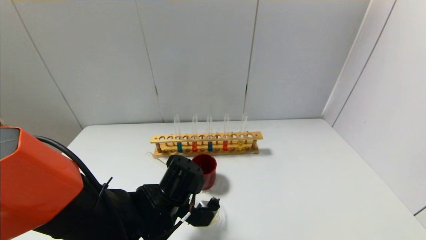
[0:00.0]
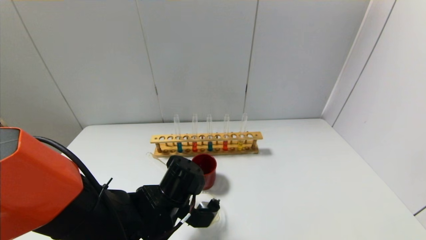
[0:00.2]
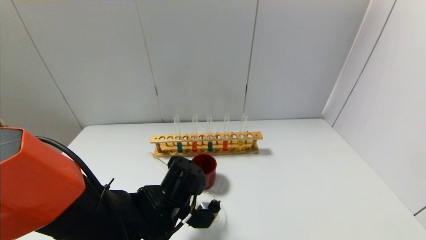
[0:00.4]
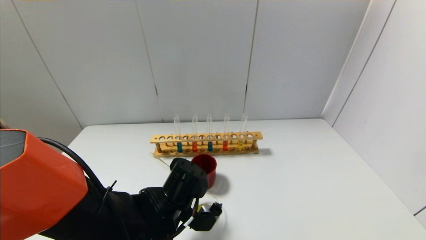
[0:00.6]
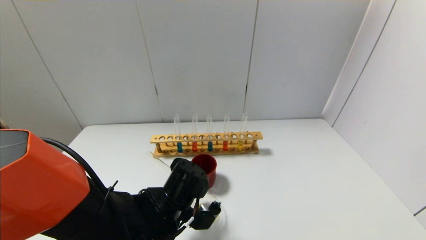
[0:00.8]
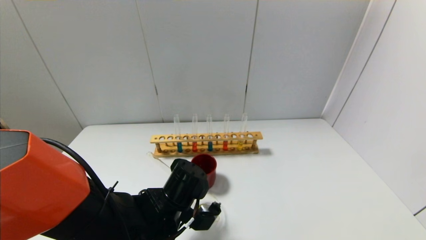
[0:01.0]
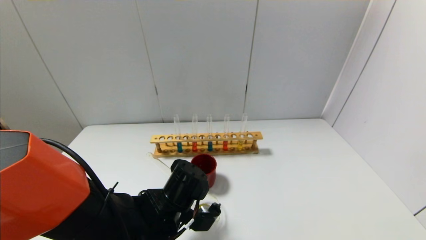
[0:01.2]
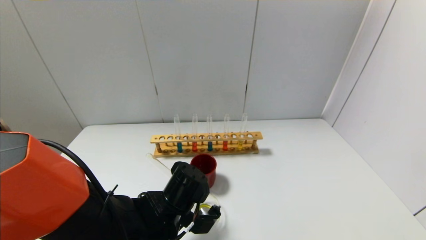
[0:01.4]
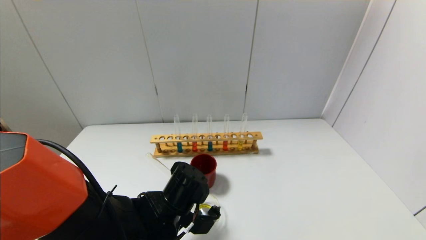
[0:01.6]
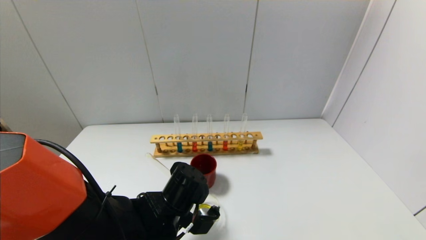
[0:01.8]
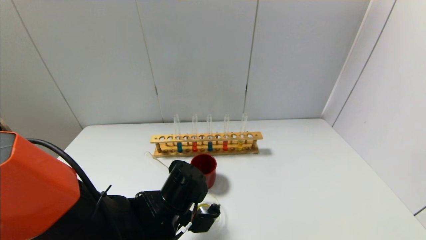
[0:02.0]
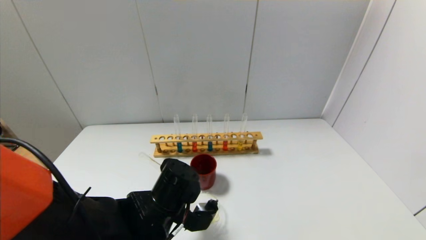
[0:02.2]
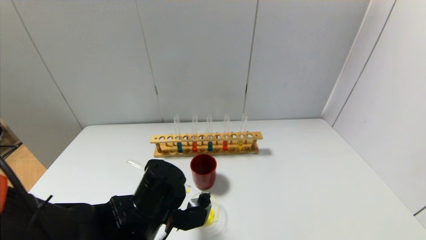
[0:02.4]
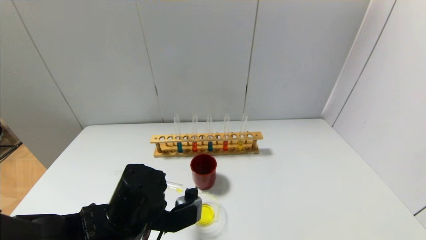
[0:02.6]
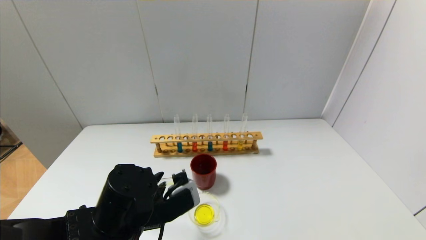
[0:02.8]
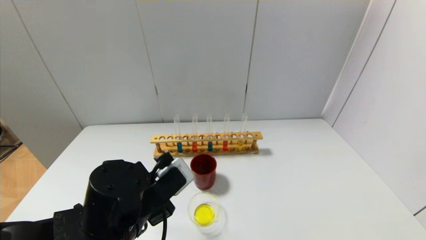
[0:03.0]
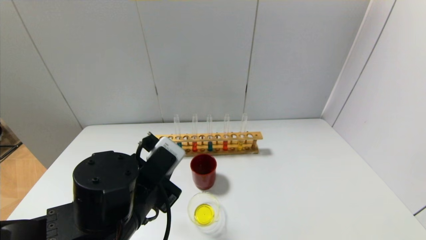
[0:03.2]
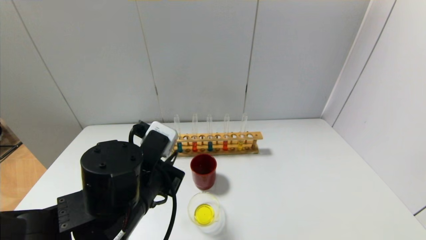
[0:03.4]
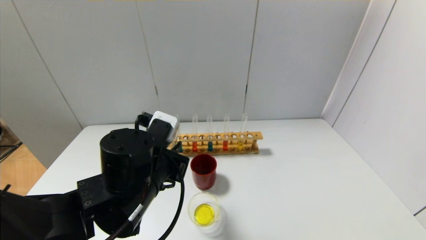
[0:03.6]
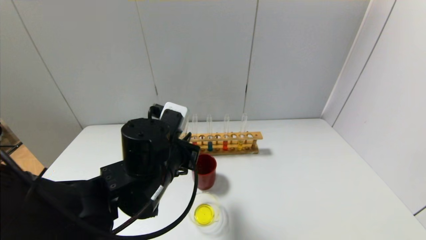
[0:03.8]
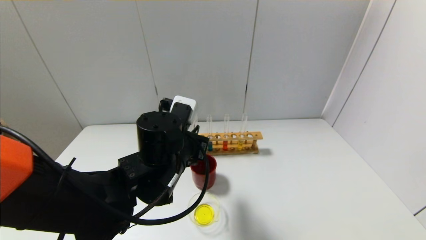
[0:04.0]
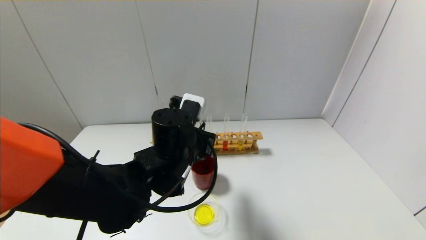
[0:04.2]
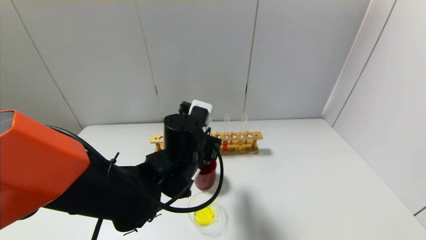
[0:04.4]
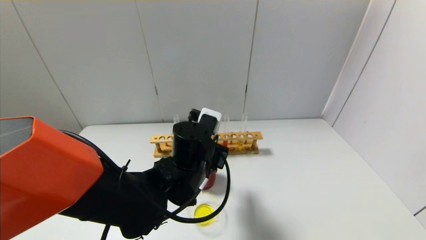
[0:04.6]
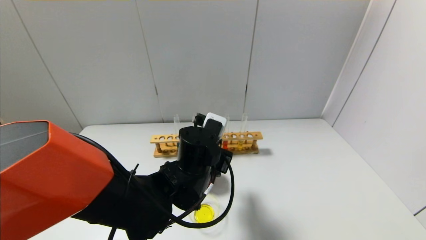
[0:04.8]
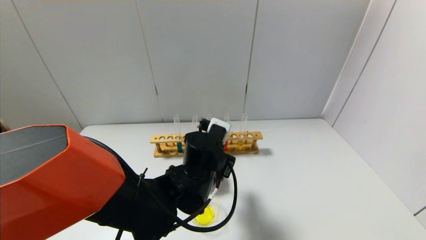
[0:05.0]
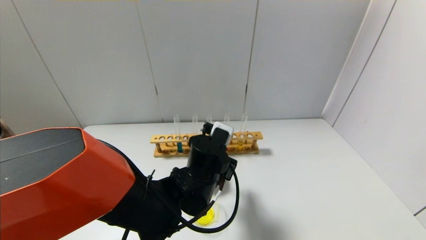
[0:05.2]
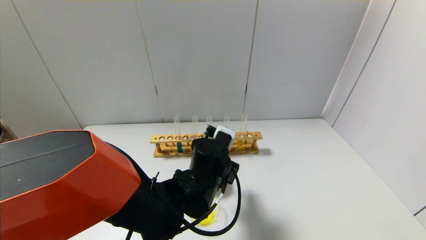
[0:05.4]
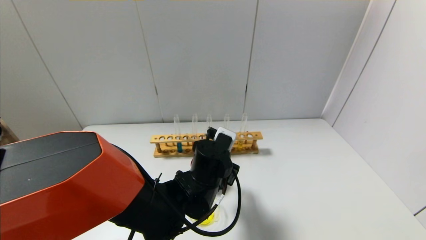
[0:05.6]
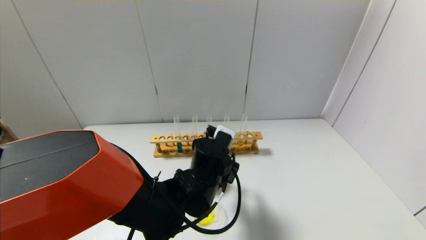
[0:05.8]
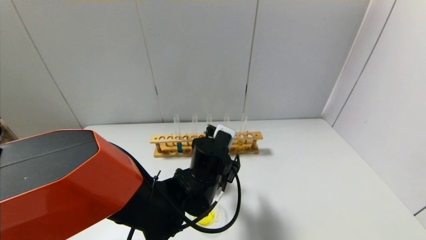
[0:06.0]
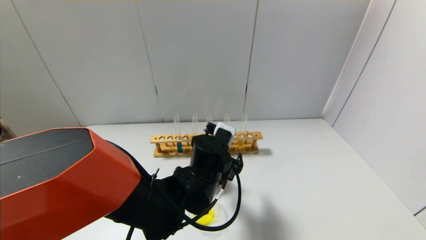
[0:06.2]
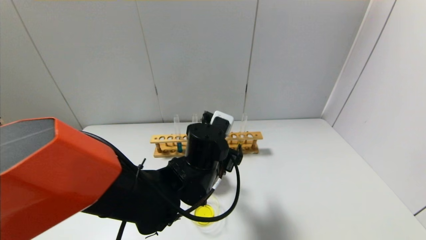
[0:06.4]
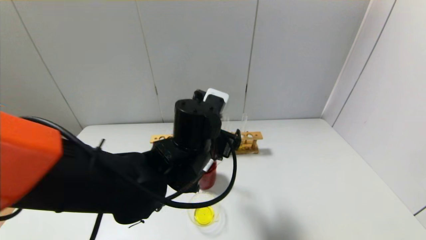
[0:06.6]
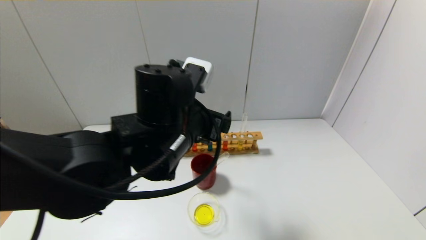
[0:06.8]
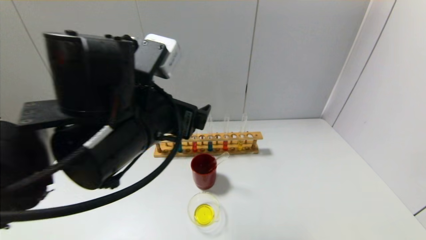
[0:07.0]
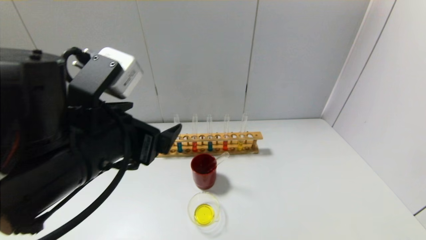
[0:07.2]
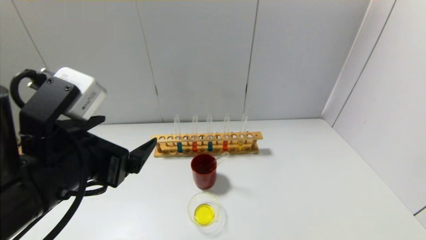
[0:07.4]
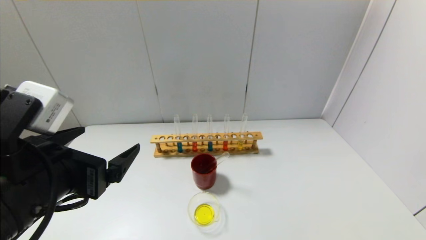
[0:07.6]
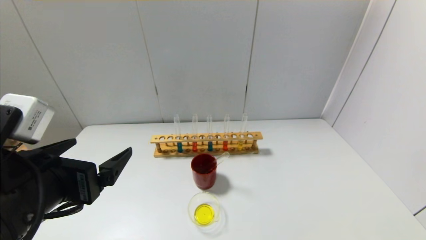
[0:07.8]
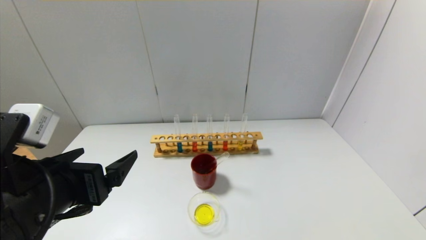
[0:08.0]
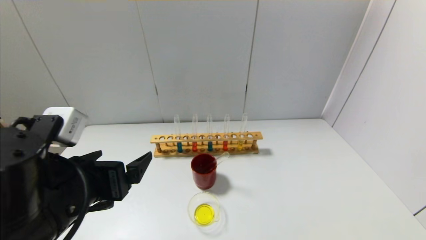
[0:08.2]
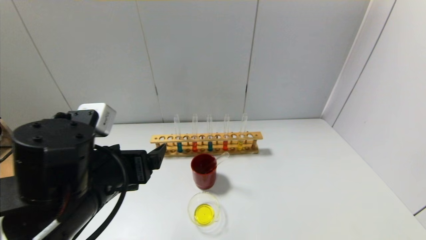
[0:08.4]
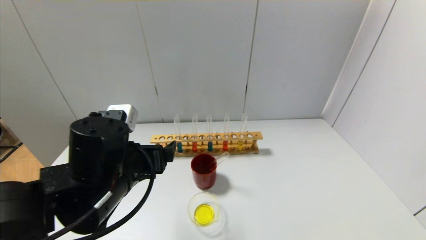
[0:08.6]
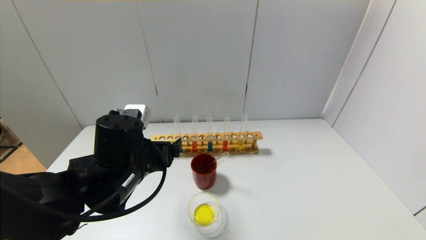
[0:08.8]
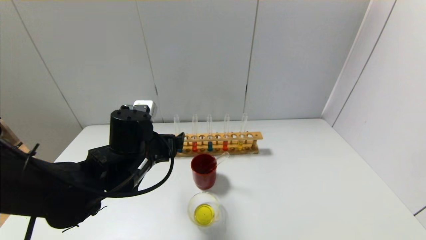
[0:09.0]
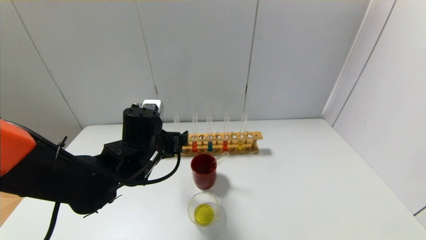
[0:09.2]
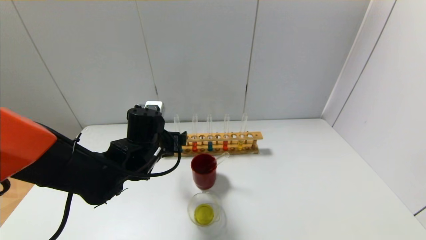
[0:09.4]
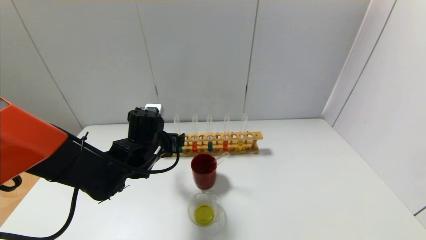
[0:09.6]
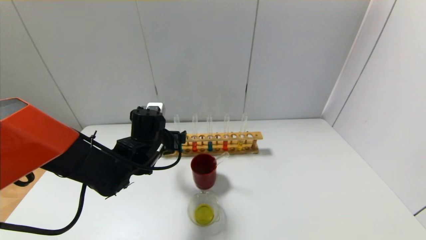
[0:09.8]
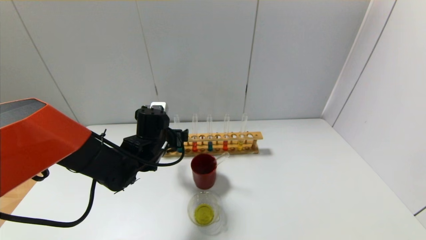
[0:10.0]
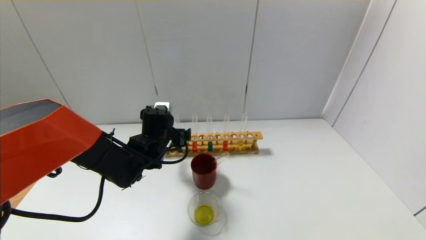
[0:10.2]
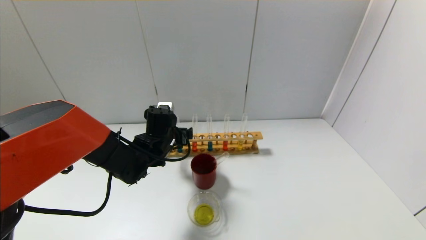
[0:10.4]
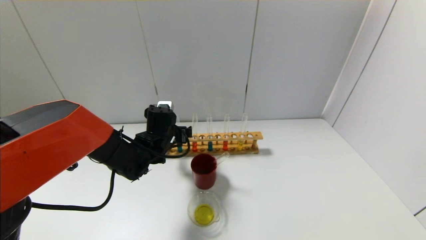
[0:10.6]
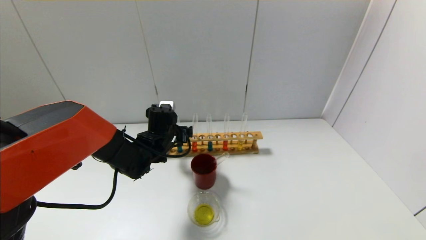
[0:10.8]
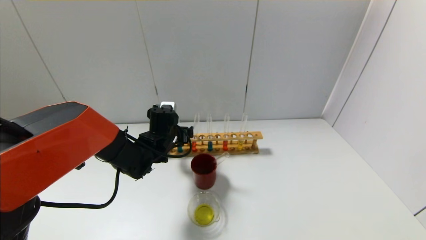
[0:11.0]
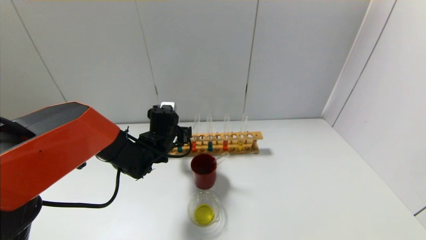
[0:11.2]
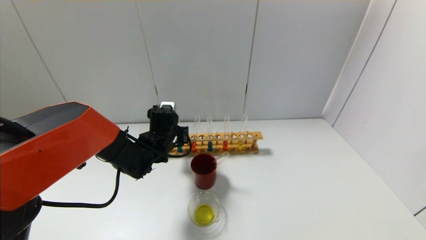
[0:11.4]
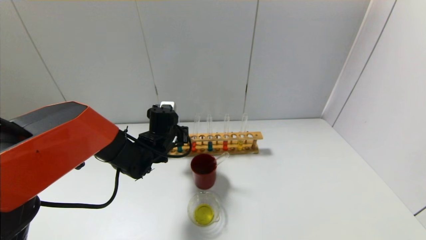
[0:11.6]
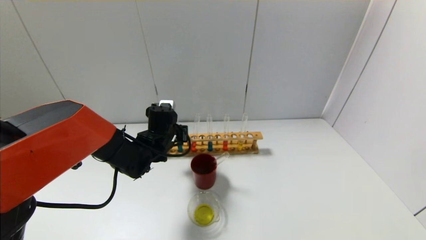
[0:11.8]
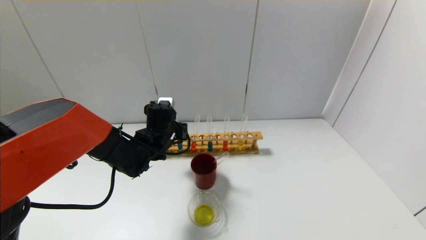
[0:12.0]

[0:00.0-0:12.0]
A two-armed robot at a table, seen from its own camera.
Step, 0:00.0 to 0:02.6: Pour the yellow reagent into the graduated cylinder with the left gripper.
Step, 0:02.8 to 0:05.8: Place the test tube into the brown cup with the left gripper.
Step, 0:06.0 to 0:11.8: Grasp the blue reagent with the left gripper.
0:00.0 to 0:01.6: Neither gripper changes place.
0:01.6 to 0:03.0: The left gripper heads upward and backward, covering some 10 cm.
0:03.0 to 0:04.4: The left gripper is displaced forward and to the right by some 15 cm.
0:04.4 to 0:06.0: The left gripper ends up approximately 5 cm from where it was, and opens its fingers.
0:06.0 to 0:07.6: The left gripper heads to the left, backward and upward, covering about 25 cm.
0:07.6 to 0:09.0: The left gripper is displaced forward and downward by approximately 15 cm.
0:09.0 to 0:10.4: The left gripper is displaced forward by roughly 10 cm.
0:10.4 to 0:12.0: The left gripper closes up.

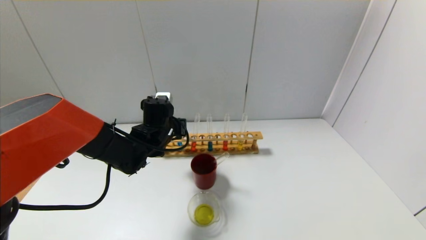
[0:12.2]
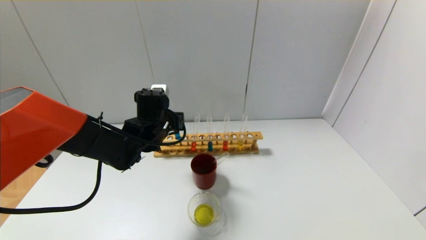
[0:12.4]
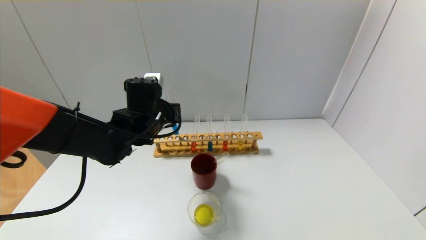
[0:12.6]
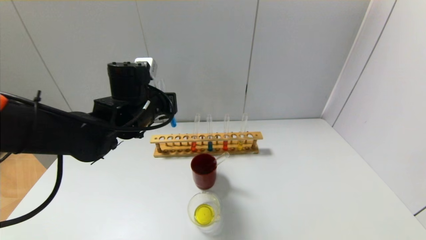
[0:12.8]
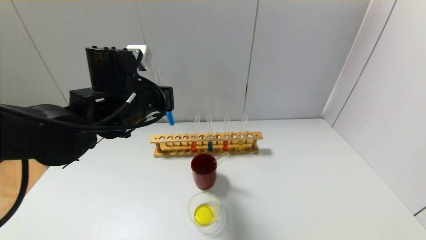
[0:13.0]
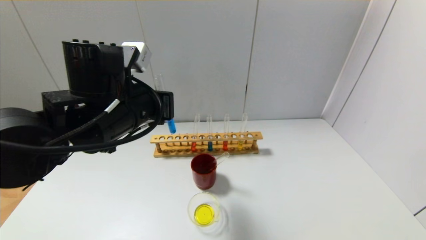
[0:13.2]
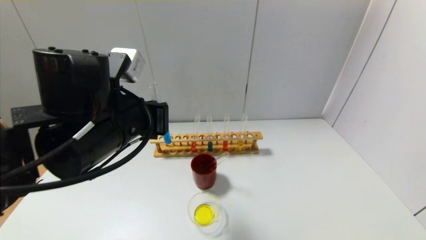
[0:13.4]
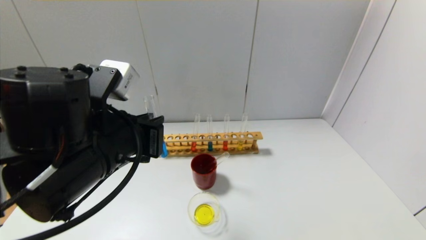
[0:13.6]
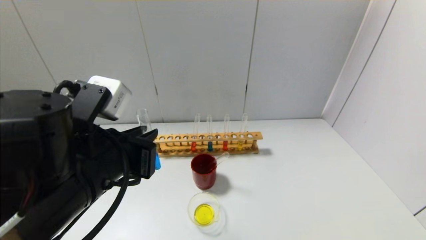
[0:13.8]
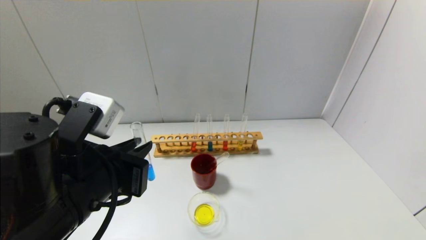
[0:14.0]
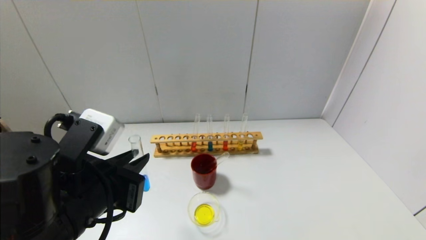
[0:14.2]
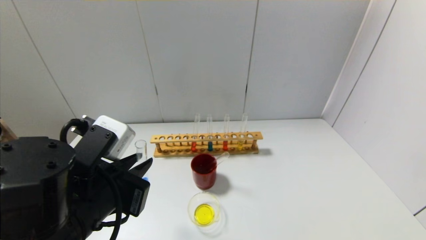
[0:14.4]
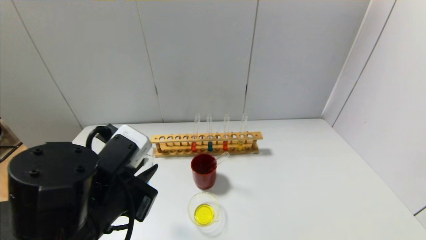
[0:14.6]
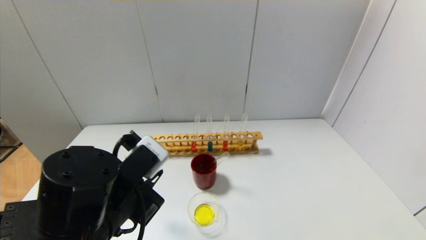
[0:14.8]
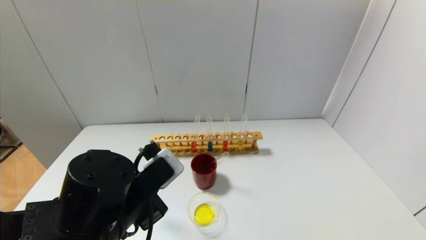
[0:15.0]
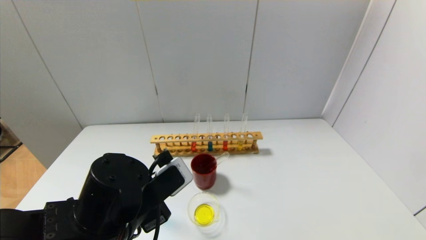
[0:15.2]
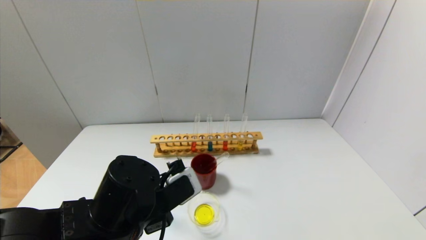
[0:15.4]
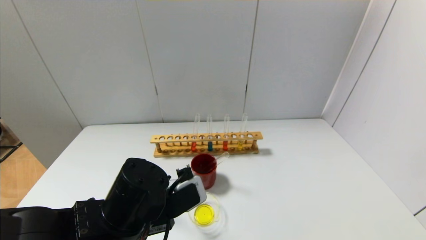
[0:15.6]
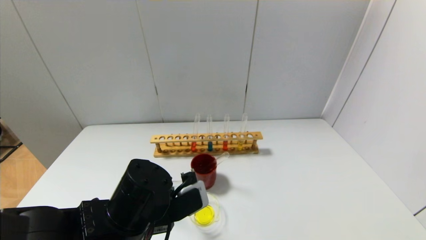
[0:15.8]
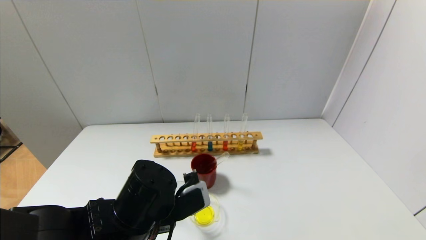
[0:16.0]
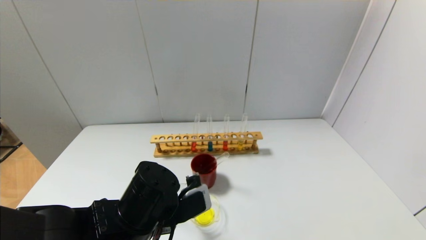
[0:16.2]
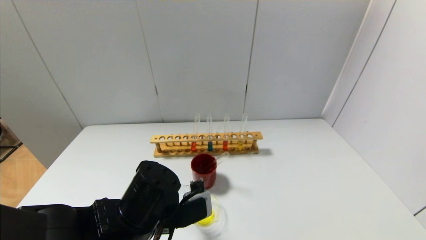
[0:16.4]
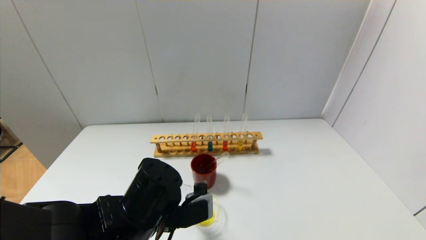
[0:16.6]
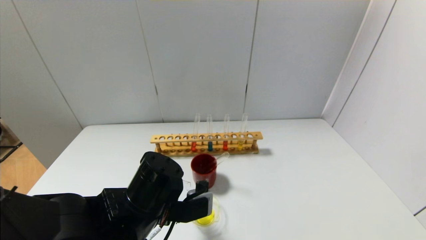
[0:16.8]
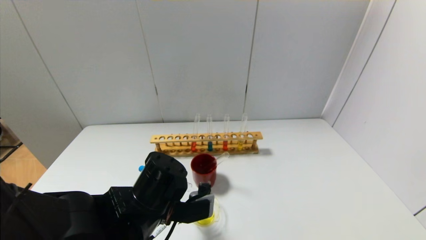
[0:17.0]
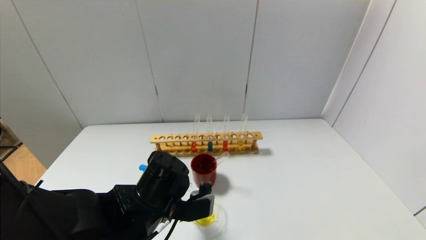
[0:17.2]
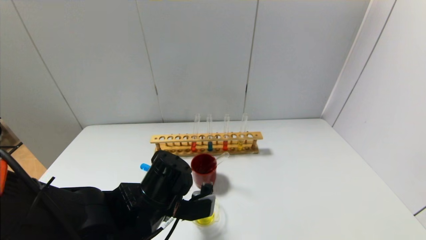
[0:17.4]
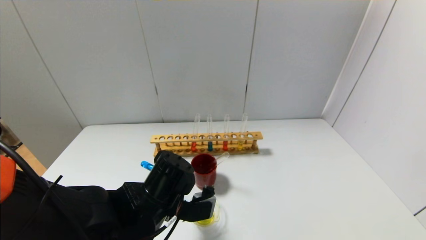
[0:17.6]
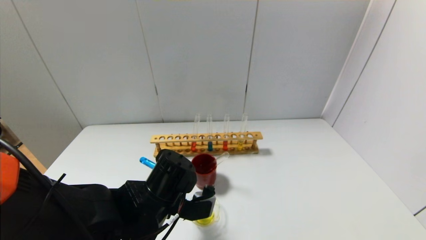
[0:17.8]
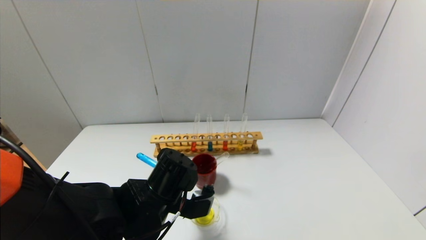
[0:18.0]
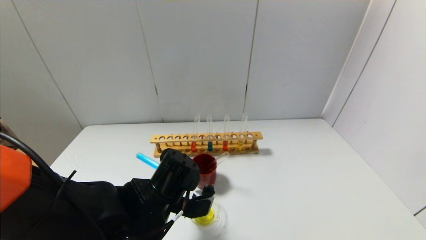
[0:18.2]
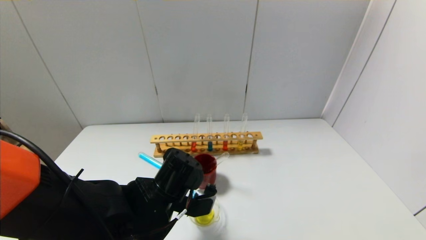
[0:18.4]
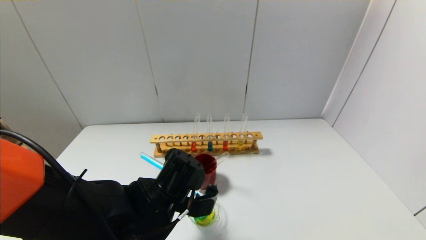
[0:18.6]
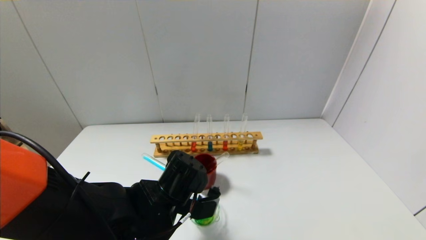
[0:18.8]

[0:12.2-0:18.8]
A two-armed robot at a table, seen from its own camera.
0:12.2 to 0:13.8: The left gripper goes approximately 25 cm backward and upward.
0:13.8 to 0:15.4: The left gripper shifts about 10 cm downward.
0:15.4 to 0:17.2: The left gripper shifts by about 5 cm.
0:17.2 to 0:18.8: The grippers move only a little.
